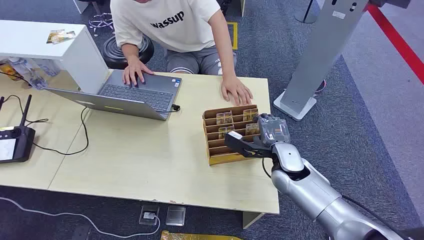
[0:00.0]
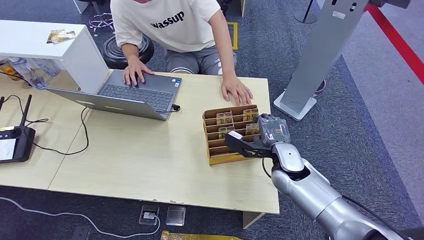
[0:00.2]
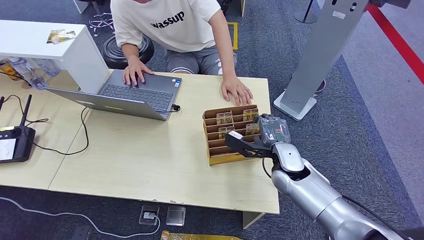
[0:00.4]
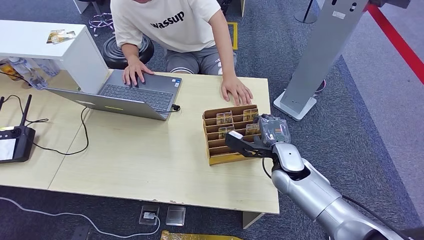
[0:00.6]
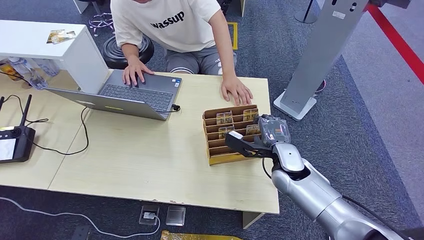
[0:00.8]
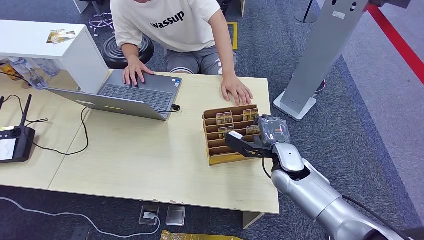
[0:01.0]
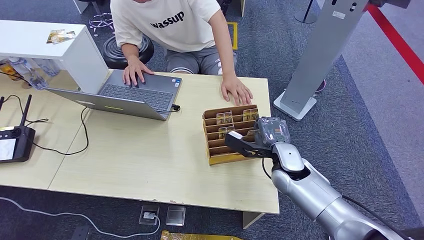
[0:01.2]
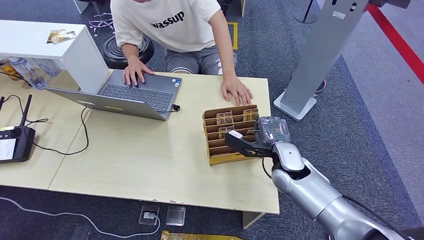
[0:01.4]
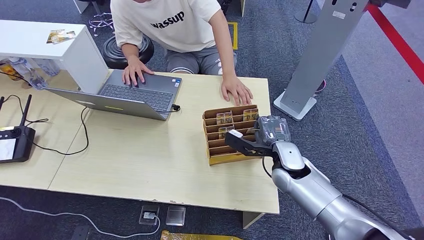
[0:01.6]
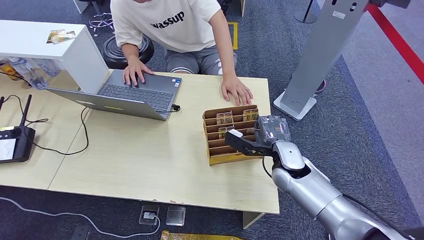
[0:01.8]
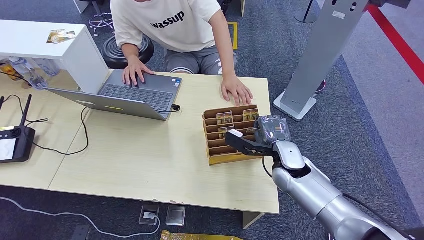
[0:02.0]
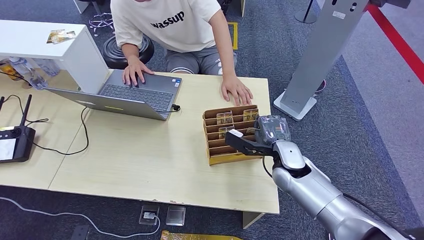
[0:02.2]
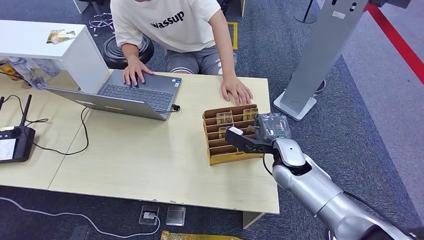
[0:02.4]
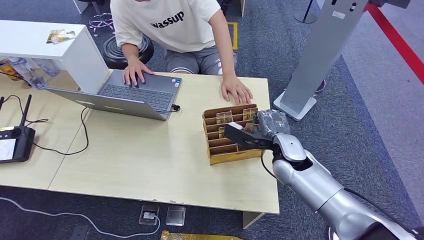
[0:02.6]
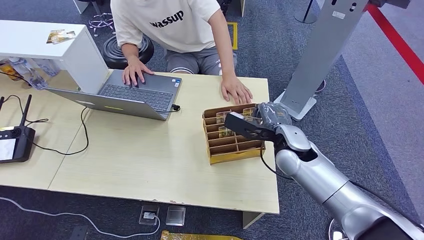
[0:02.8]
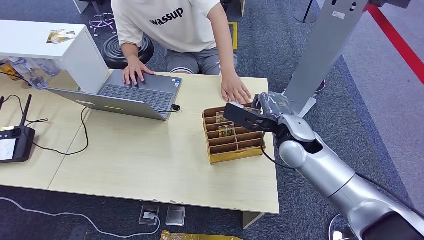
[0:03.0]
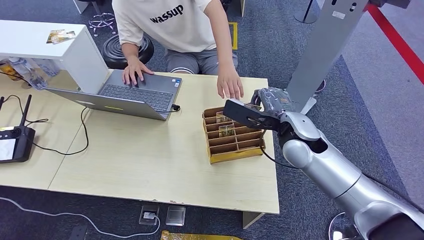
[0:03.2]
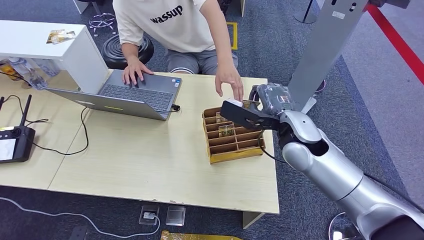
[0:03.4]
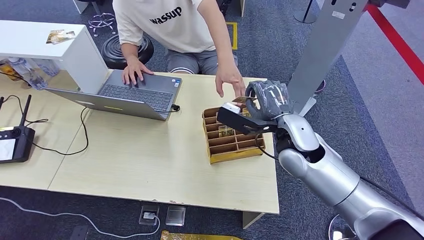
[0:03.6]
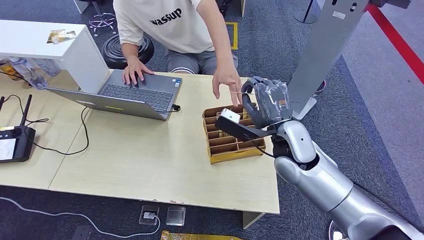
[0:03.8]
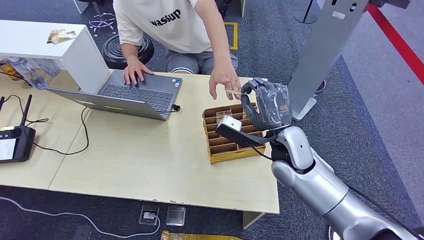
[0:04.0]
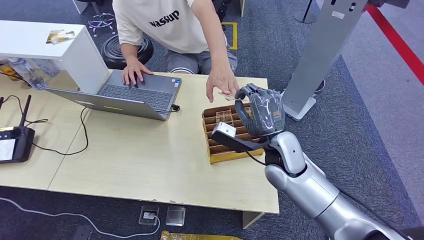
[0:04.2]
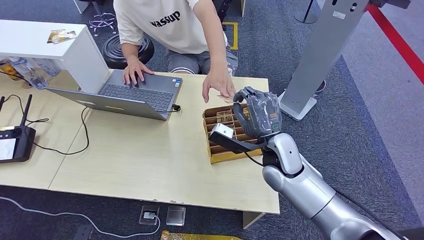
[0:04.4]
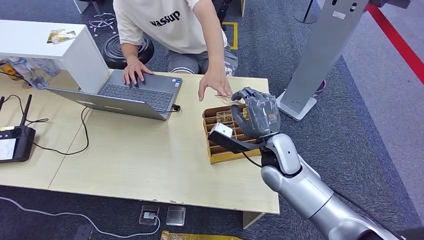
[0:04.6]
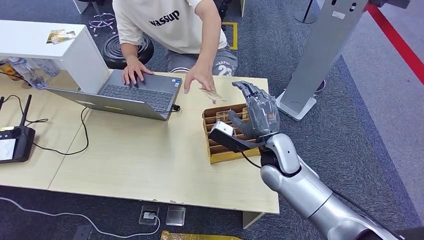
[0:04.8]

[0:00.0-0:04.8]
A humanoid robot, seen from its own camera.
Step, 0:00.0 to 0:02.6: Pick up the room card from the card holder.
Step, 0:03.0 to 0:04.8: Hand the room card to the target.
0:01.6 to 0:03.2: The right hand goes approximately 10 cm upward.
0:03.2 to 0:04.8: The right hand goes about 5 cm downward.
